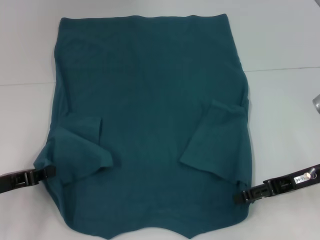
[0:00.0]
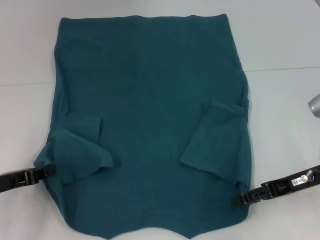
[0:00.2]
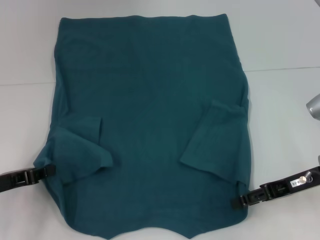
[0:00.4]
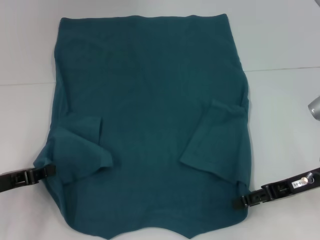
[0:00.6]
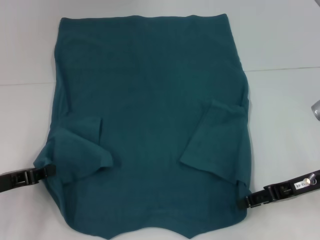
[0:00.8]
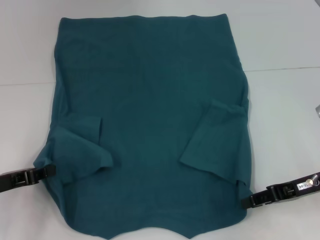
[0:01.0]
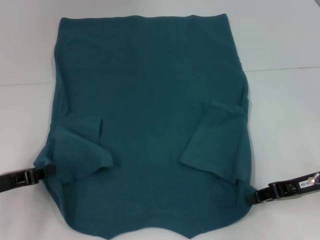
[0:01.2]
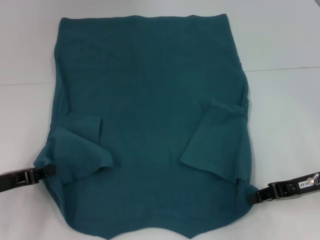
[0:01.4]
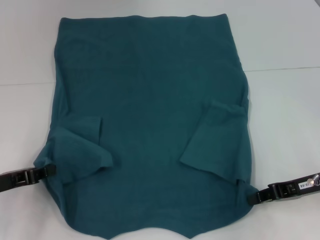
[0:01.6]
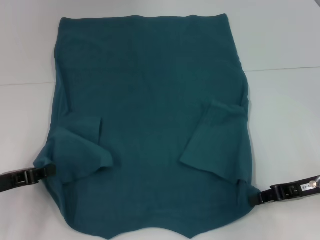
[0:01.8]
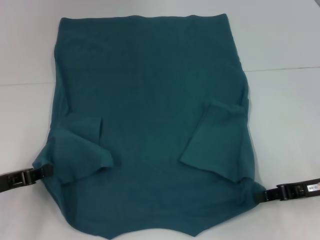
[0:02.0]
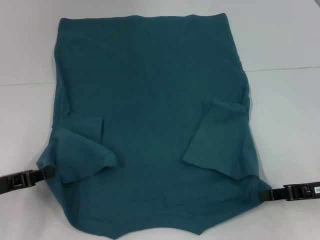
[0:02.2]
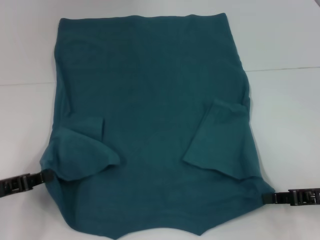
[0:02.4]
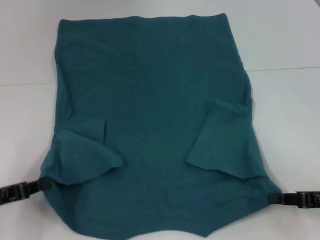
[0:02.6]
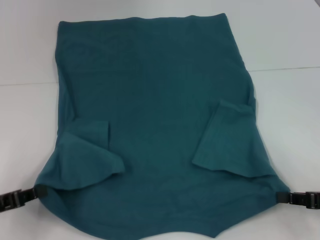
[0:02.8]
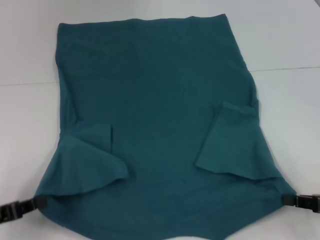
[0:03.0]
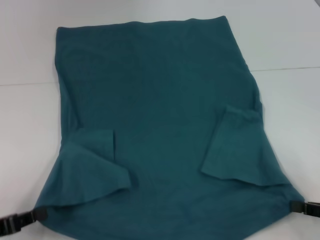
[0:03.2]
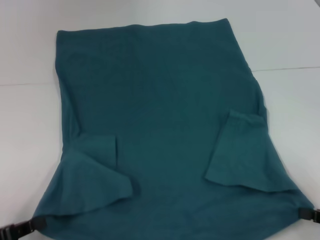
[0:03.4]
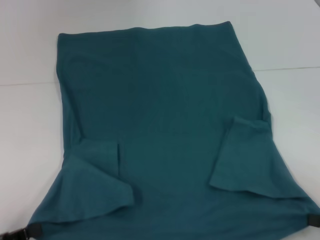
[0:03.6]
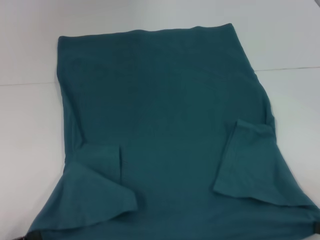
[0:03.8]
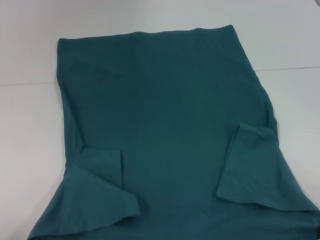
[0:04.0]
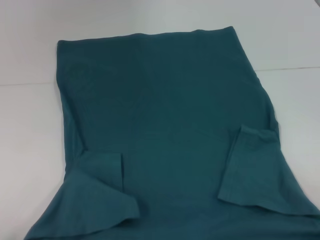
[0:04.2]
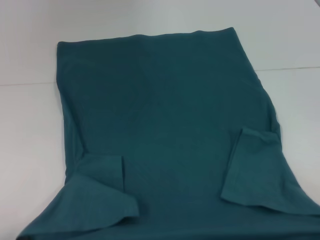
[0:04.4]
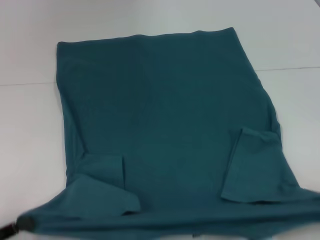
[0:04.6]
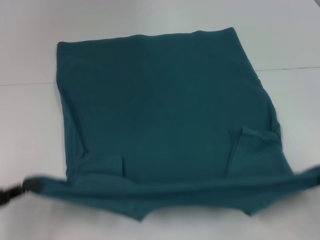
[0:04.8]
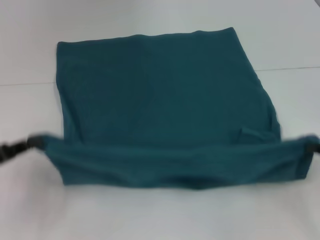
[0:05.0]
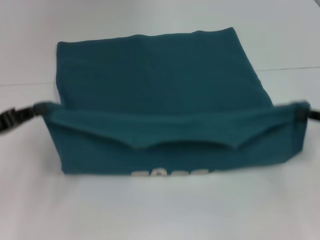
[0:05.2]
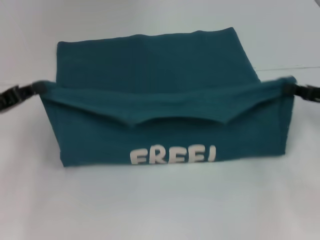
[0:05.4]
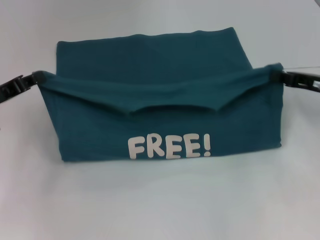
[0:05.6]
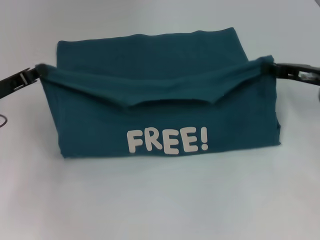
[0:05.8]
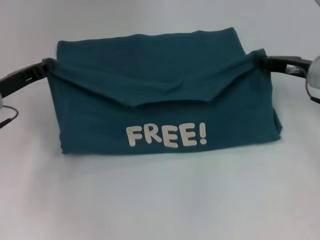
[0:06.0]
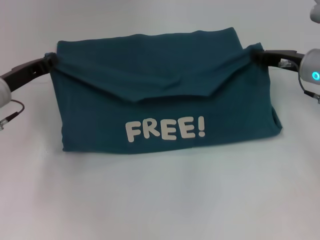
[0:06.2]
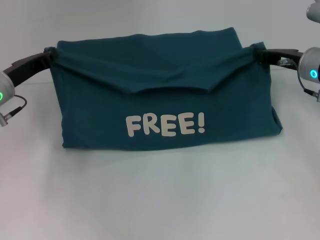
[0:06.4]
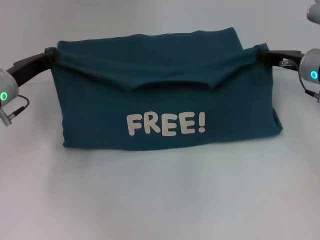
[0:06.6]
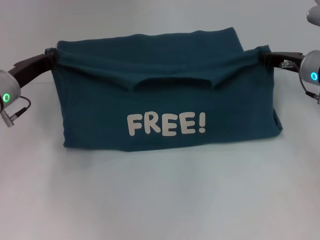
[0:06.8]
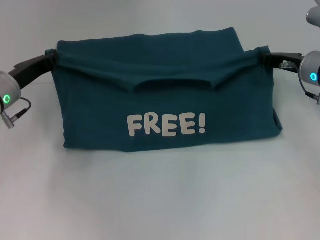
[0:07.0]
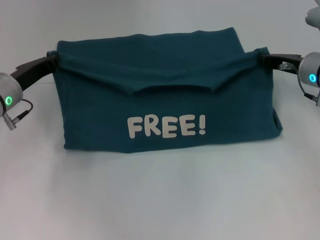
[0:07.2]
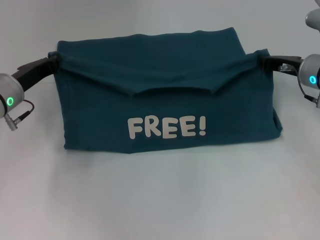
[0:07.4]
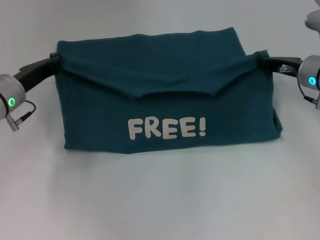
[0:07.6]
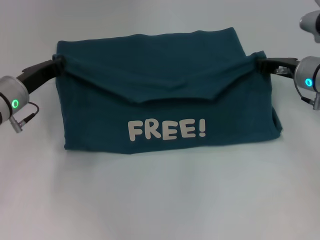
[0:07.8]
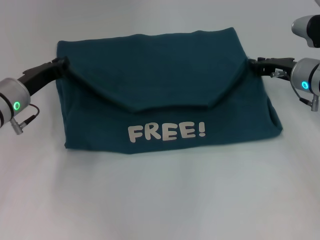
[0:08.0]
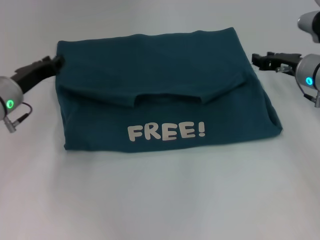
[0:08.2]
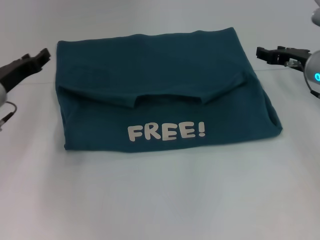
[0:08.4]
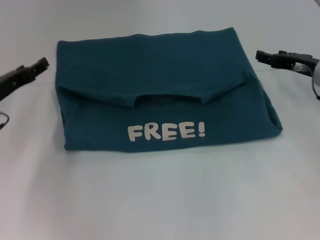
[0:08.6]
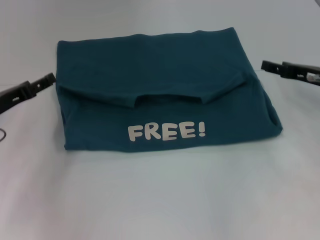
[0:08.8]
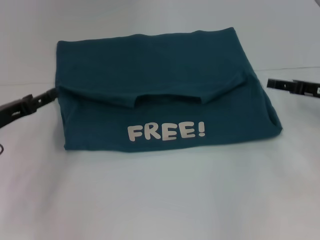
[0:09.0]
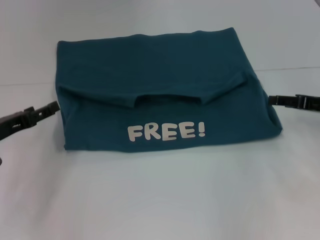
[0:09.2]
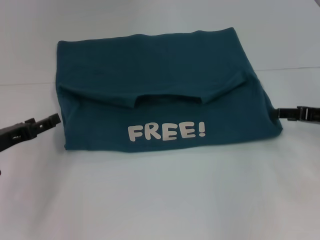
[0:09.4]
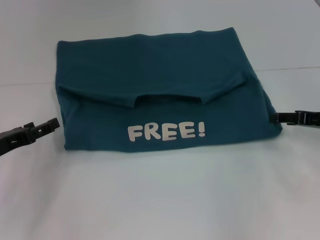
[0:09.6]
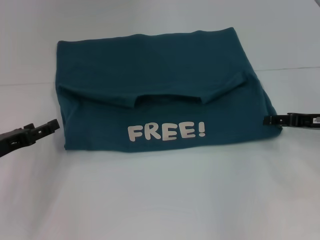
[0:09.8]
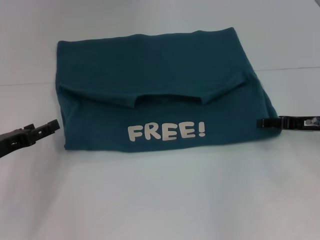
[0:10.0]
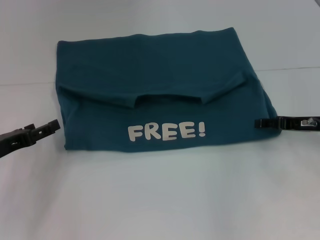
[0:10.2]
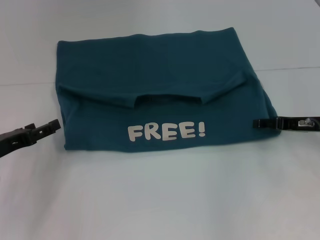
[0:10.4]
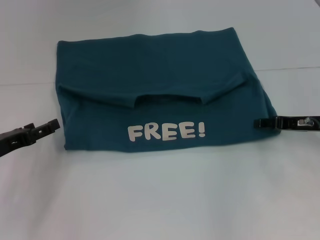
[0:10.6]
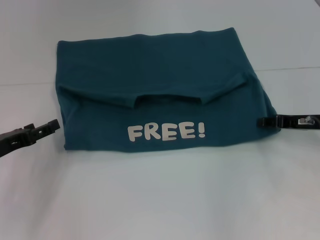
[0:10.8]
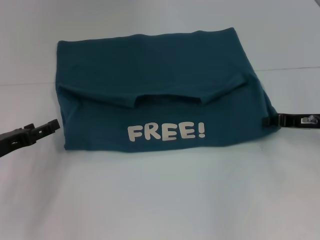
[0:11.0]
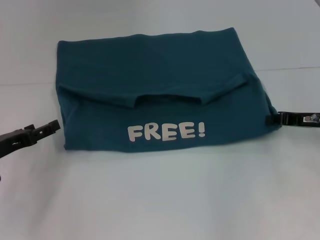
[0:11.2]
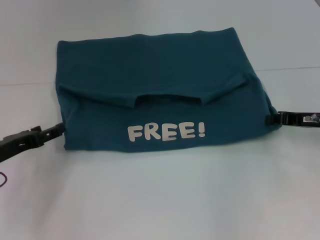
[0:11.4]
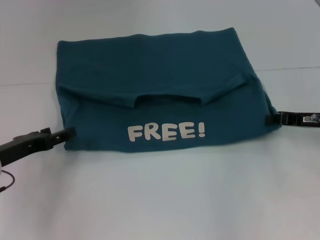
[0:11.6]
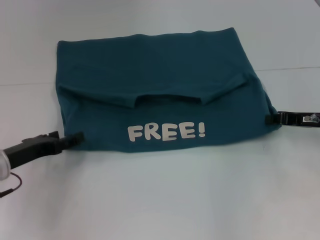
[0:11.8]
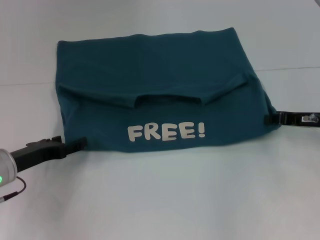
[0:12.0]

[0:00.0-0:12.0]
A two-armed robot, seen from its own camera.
Step, 0:01.8 to 0:08.2: Fold the clothes to the left.
Step, 0:01.8 to 0:08.2: Fold the clothes to the right.
0:00.0 to 0:01.6: The right gripper closes its fingers.
0:01.6 to 0:03.0: The left gripper is displaced backward by some 5 cm, while the right gripper goes some 10 cm backward and to the right.
0:03.0 to 0:04.4: Both grippers move backward, approximately 10 cm.
0:04.4 to 0:06.0: Both grippers move forward, some 25 cm.
0:06.0 to 0:07.6: The grippers move only a little.
0:07.6 to 0:09.0: The left gripper heads backward and to the left, covering about 10 cm, and opens up. Meanwhile the right gripper moves to the right and backward, about 10 cm, and opens its fingers.
0:09.0 to 0:10.4: The grippers stay close to where they were, moving slightly.
0:10.4 to 0:12.0: The right gripper closes up.

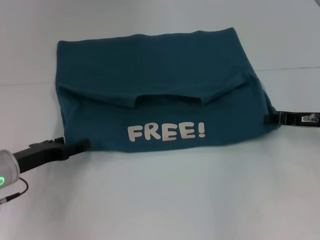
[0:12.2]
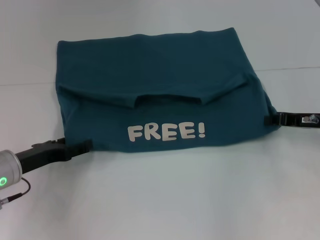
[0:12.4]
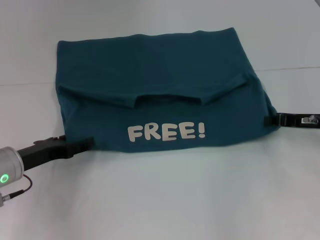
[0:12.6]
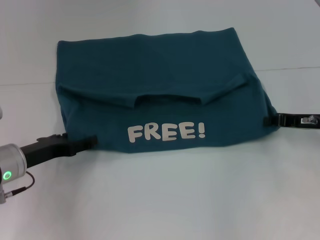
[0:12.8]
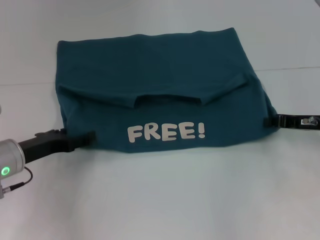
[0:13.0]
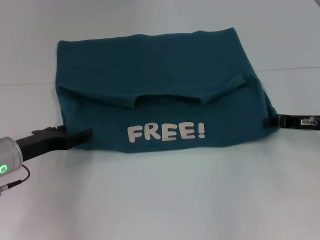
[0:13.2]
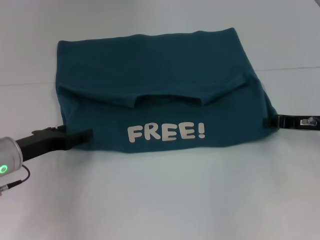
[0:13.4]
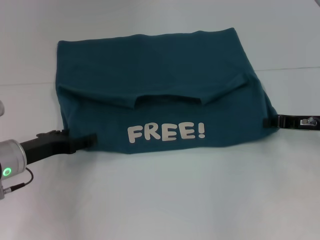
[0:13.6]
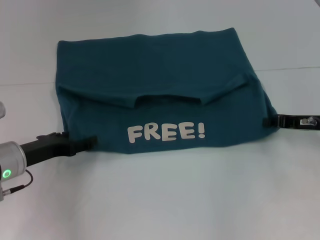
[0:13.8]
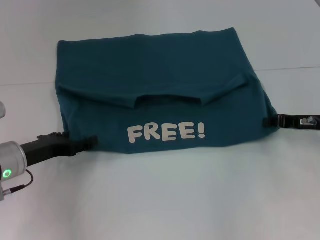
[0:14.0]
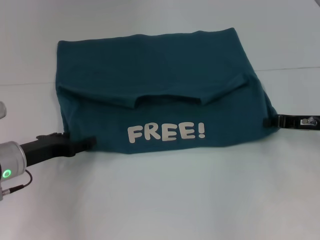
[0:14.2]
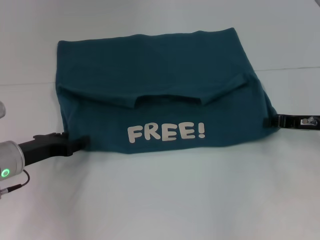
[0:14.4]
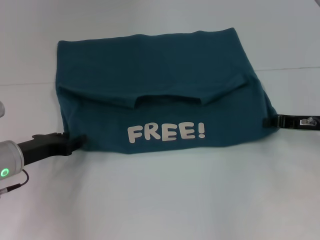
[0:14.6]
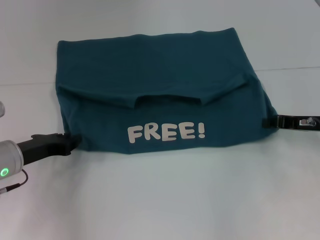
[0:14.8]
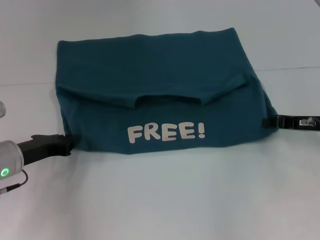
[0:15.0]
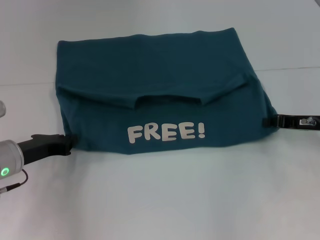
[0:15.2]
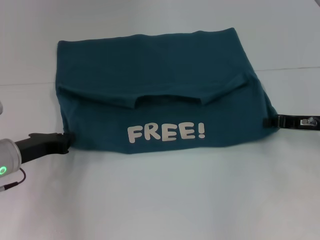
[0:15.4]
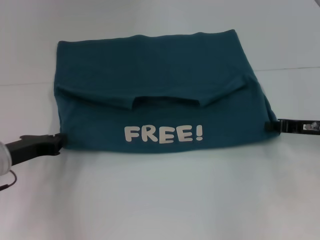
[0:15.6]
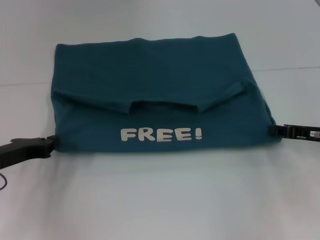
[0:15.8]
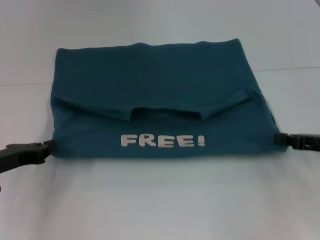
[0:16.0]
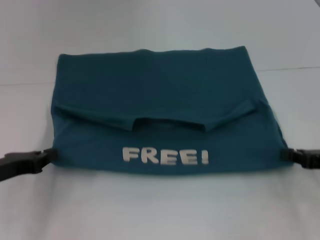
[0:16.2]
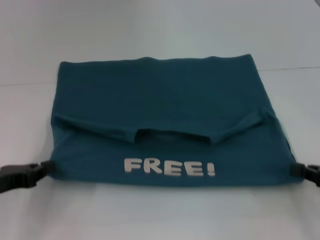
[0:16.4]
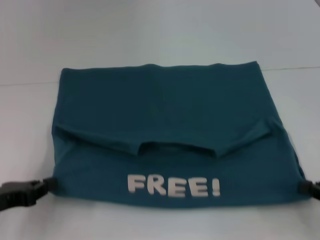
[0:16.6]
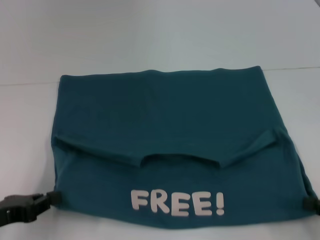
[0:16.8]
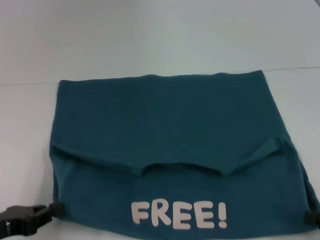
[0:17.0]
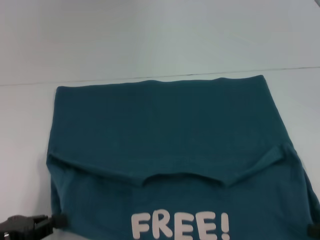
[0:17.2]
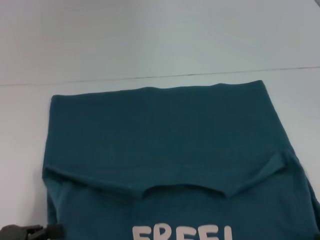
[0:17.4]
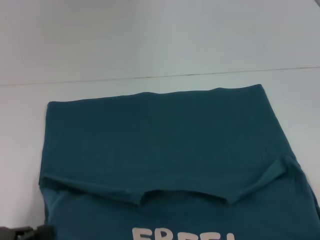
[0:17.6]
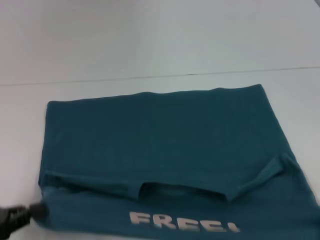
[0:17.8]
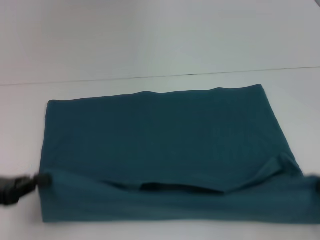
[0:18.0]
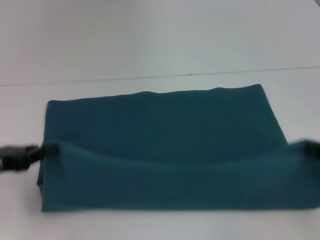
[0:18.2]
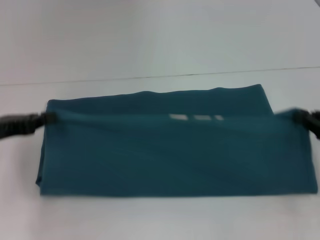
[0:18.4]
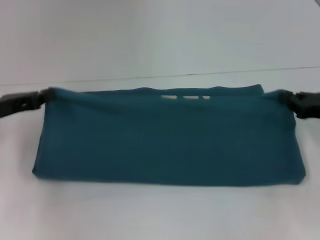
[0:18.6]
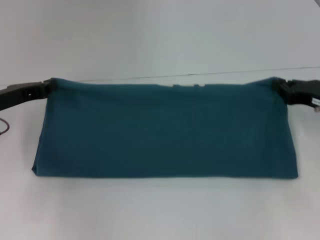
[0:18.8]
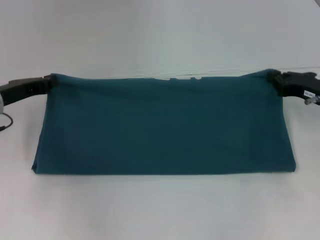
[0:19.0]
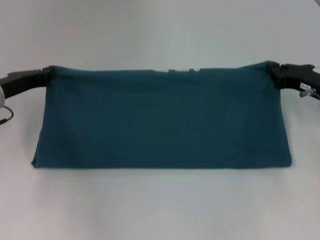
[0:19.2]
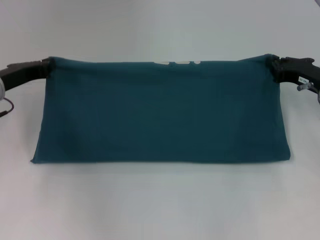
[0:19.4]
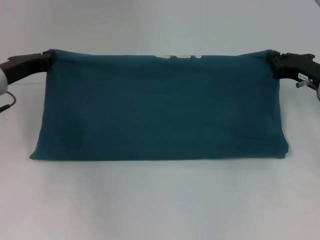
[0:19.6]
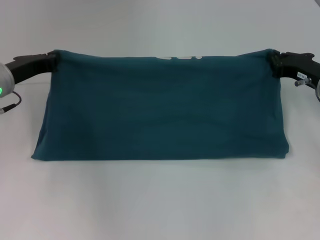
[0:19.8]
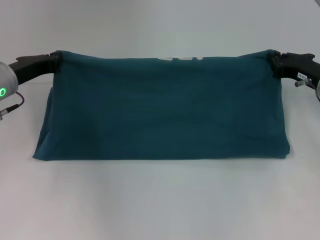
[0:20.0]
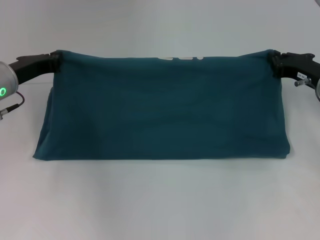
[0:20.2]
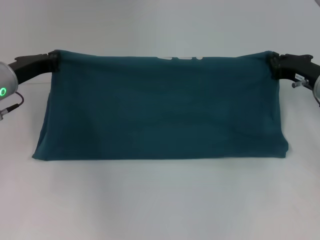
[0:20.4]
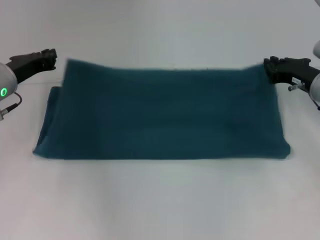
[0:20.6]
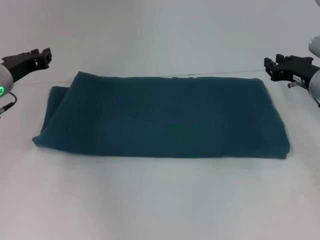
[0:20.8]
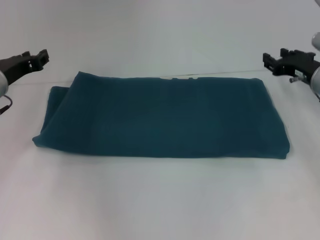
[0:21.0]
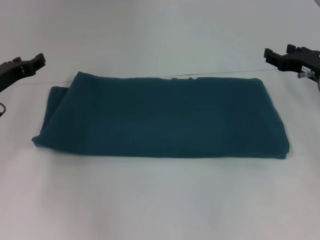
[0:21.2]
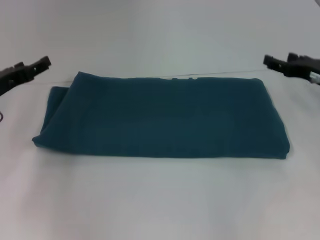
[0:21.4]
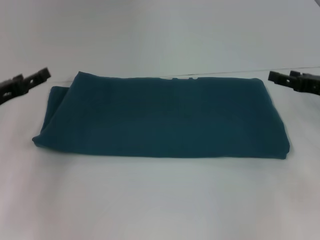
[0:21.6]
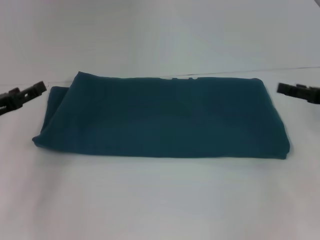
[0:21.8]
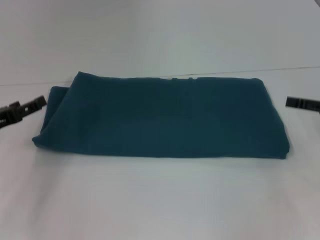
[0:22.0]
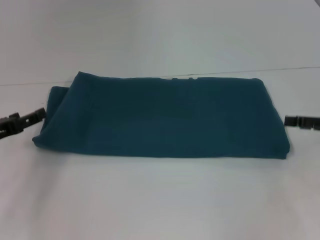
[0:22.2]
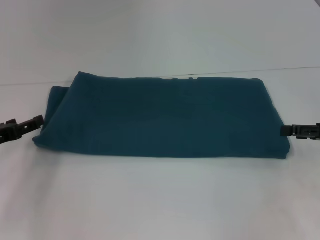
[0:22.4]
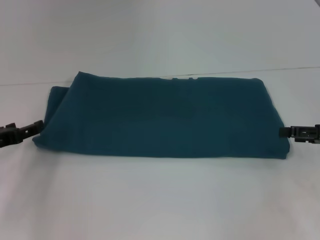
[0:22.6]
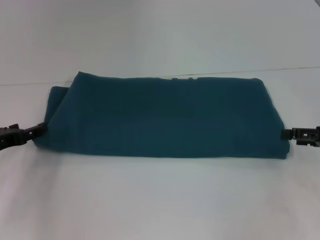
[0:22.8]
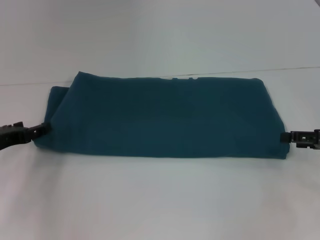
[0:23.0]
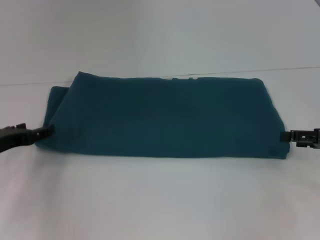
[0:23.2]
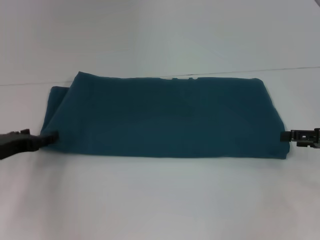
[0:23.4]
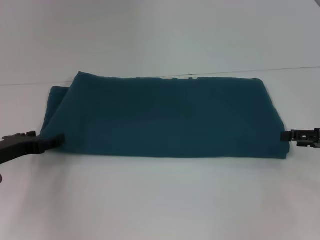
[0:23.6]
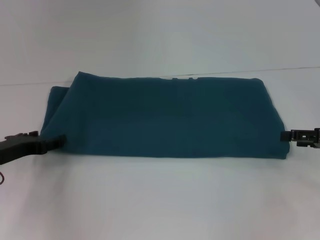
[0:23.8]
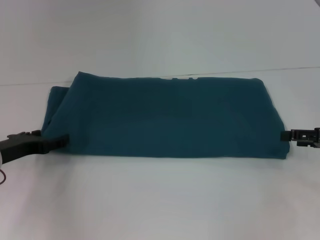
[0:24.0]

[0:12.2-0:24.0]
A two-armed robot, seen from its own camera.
Step, 0:12.2 to 0:17.4: Pull the clothes with your left hand.
Step, 0:12.2 to 0:17.4: Pull the clothes with your right hand.
Step, 0:17.6 to 0:20.8: Fold the clothes to the right.
0:12.2 to 0:13.6: There are only small adjustments of the grippers.
0:13.6 to 0:15.2: The left gripper closes up.
0:15.2 to 0:16.6: The left gripper goes some 10 cm backward and to the left. Meanwhile the right gripper is displaced backward by about 15 cm.
0:16.6 to 0:18.2: The left gripper reaches approximately 5 cm backward, then returns; the right gripper goes backward and returns, some 10 cm each way.
0:18.2 to 0:19.6: The left gripper heads forward, covering approximately 15 cm. Meanwhile the right gripper moves forward and to the left, some 20 cm.
0:19.6 to 0:21.0: The grippers make only small movements.
0:21.0 to 0:22.6: The right gripper is displaced backward and to the right by roughly 15 cm, and opens its fingers. Meanwhile the left gripper is displaced backward and to the left by about 10 cm, and opens up.
0:22.6 to 0:24.0: The grippers make only small movements.
